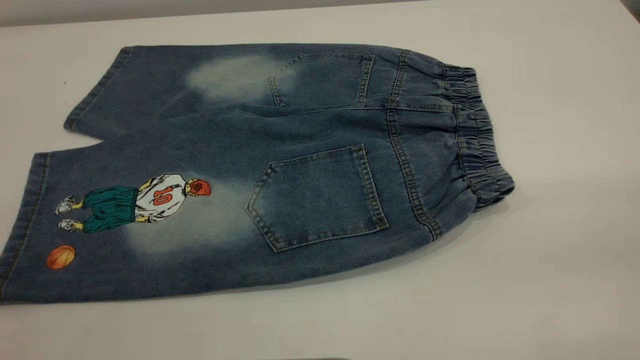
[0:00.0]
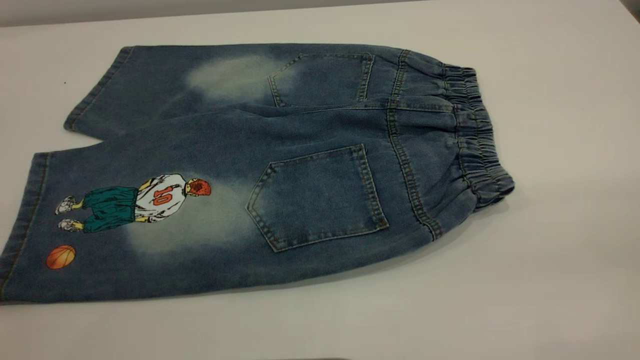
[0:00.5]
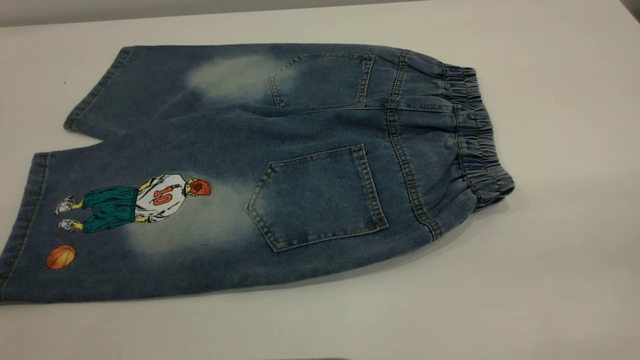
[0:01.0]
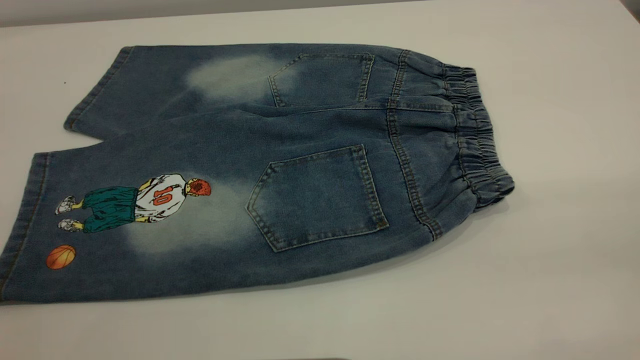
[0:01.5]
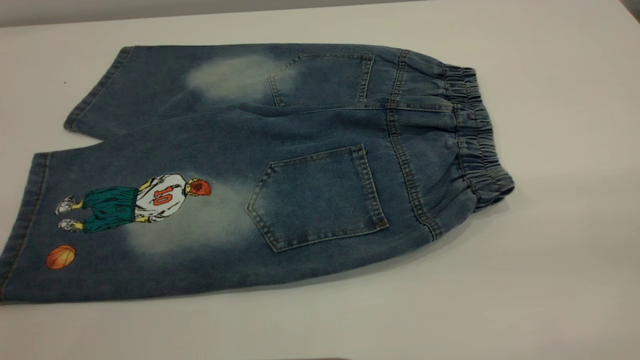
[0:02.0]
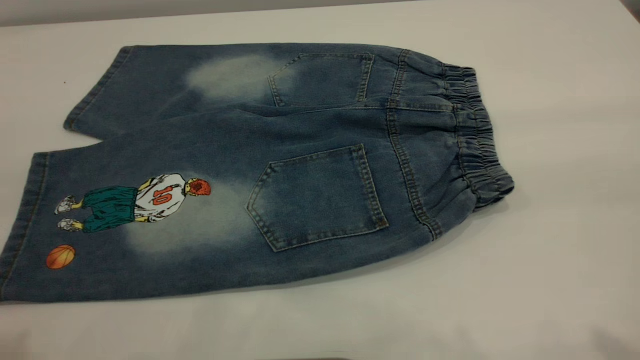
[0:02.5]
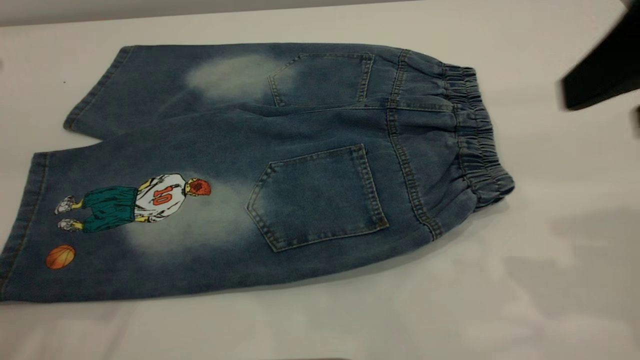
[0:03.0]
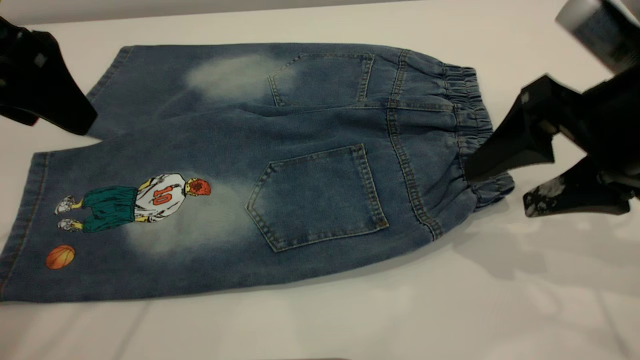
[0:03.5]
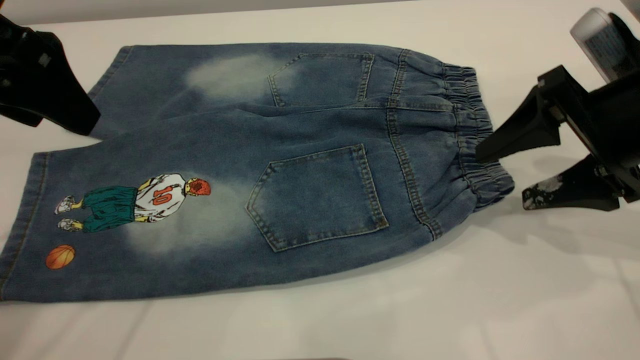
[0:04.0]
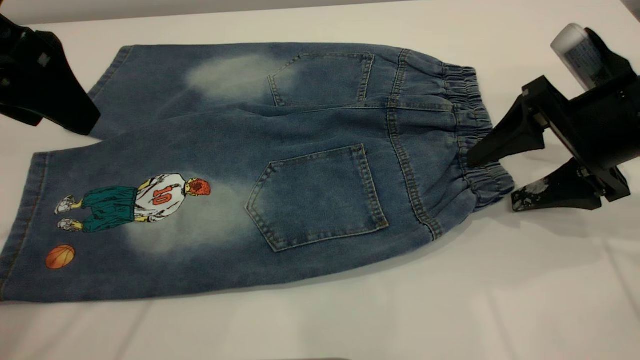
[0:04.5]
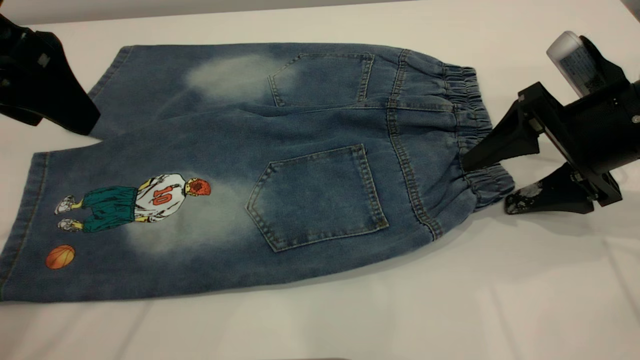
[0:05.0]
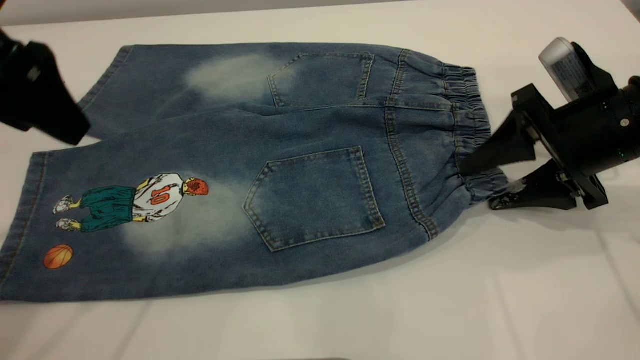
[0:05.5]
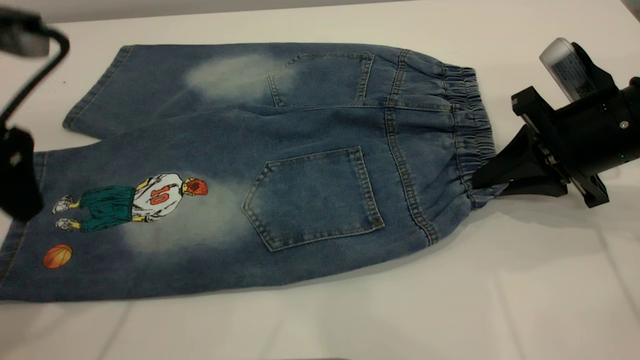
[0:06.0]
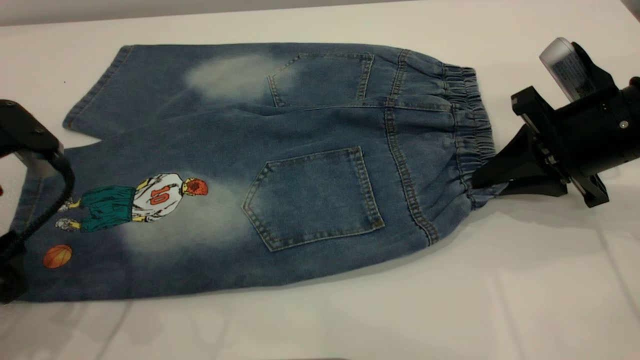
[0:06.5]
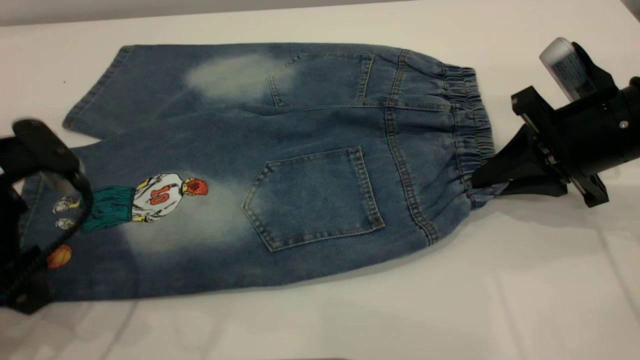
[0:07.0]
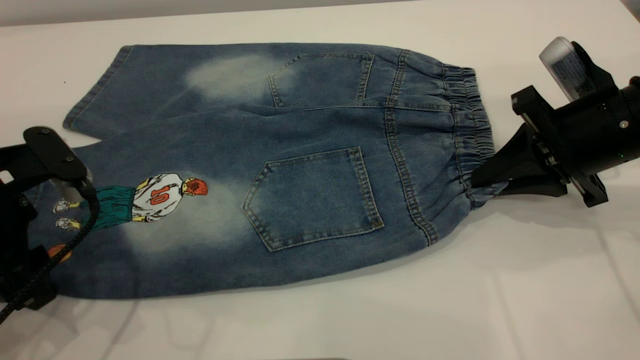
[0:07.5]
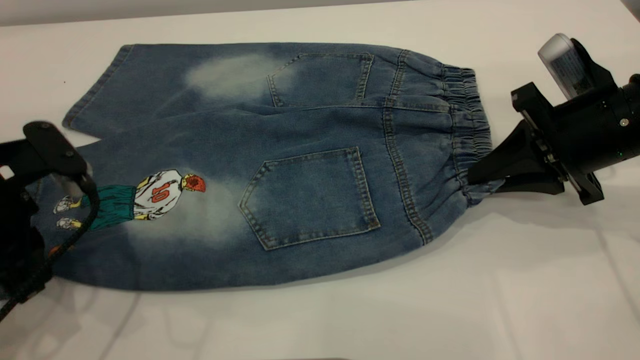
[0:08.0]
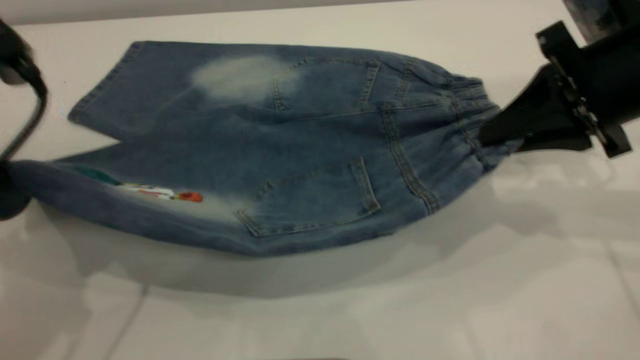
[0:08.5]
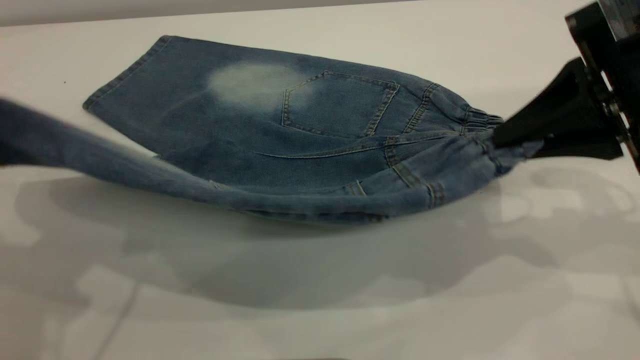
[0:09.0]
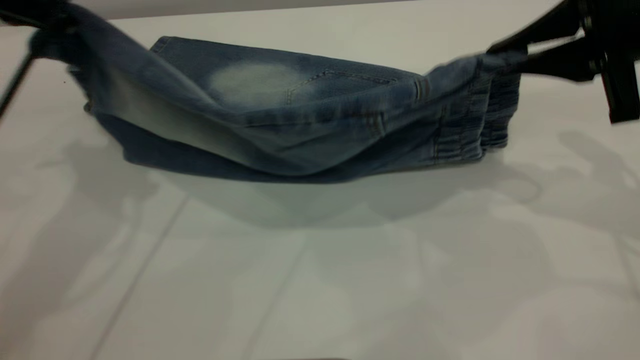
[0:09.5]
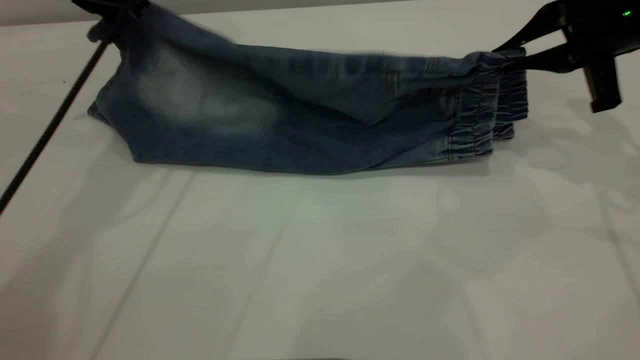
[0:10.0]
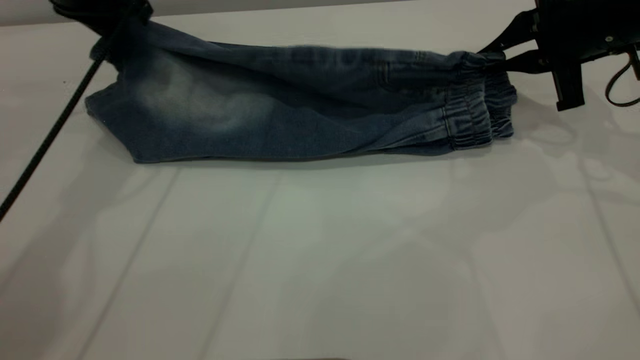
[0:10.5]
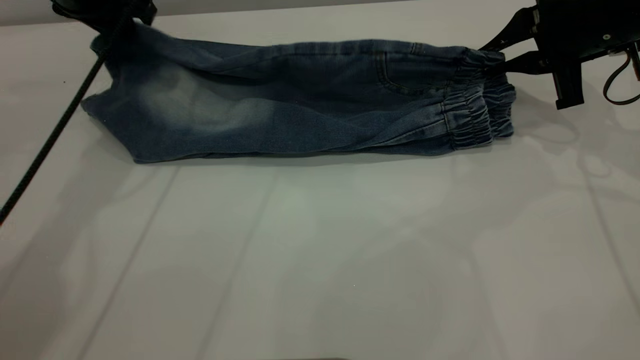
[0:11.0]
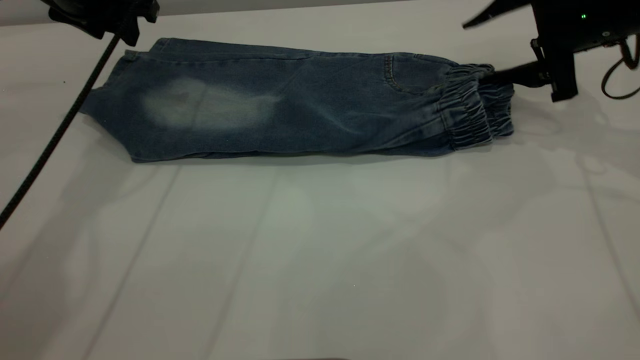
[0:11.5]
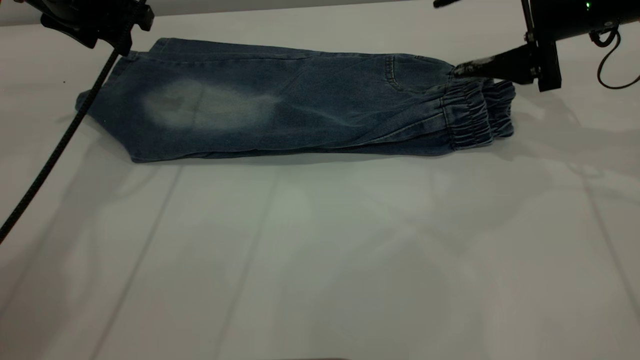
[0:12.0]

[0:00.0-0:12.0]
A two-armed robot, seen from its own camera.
Step, 0:00.0 to 0:11.5: Fold the bottom of the pants upward.
0:02.0 to 0:04.0: The left gripper travels forward by some 25 cm. Meanwhile the right gripper goes approximately 35 cm forward and downward.
0:04.0 to 0:06.0: The right gripper ends up some 5 cm from where it was, and closes up; the left gripper changes place by roughly 5 cm.
0:06.0 to 0:08.0: The left gripper goes some 10 cm downward, and closes its fingers.
0:08.0 to 0:10.0: The right gripper travels upward and forward by approximately 10 cm. The left gripper goes roughly 20 cm forward and upward.
0:10.0 to 0:12.0: The right gripper opens; the left gripper opens its fingers.

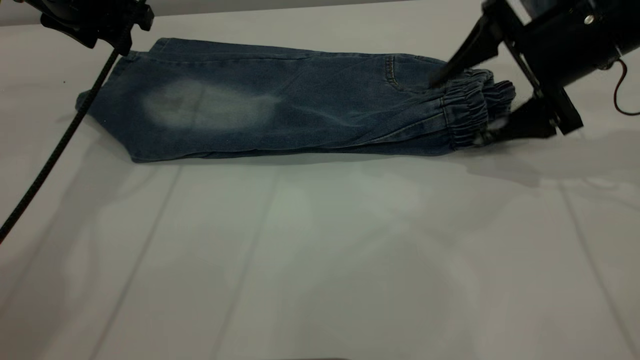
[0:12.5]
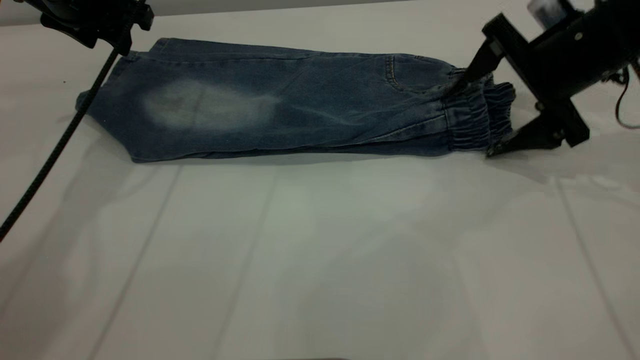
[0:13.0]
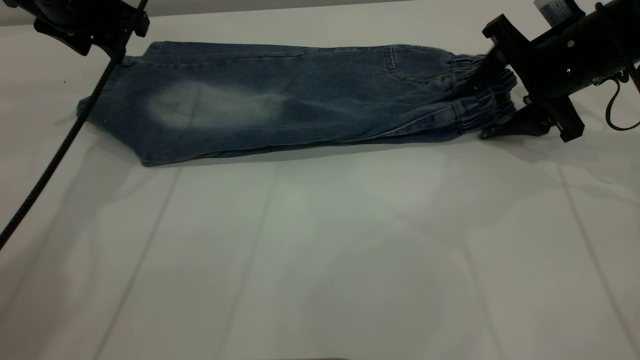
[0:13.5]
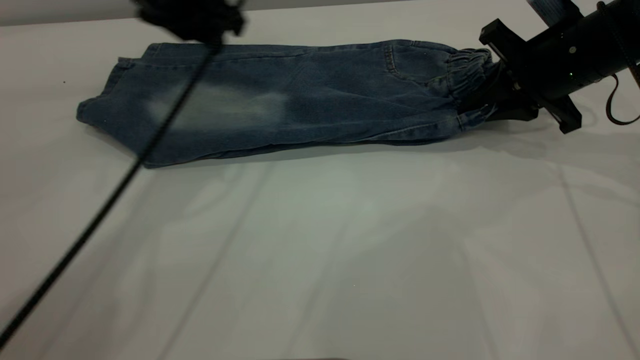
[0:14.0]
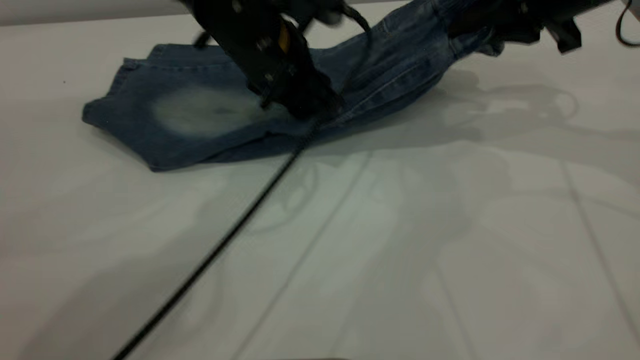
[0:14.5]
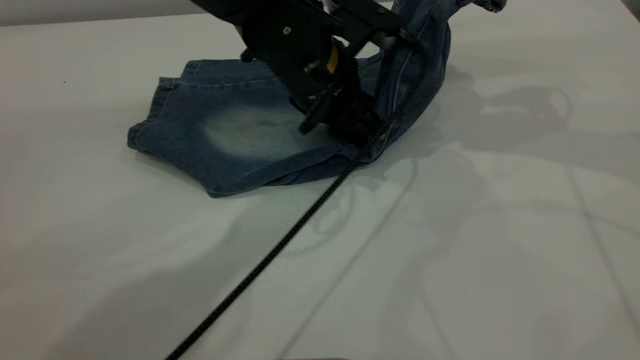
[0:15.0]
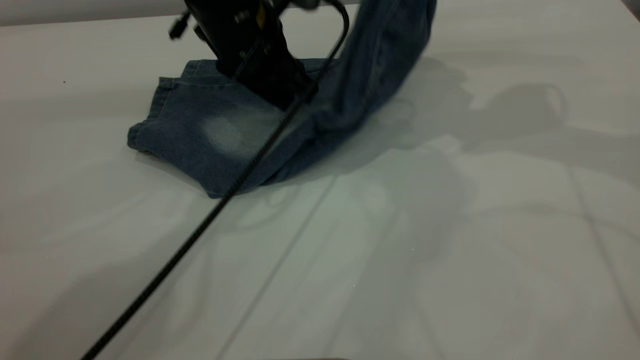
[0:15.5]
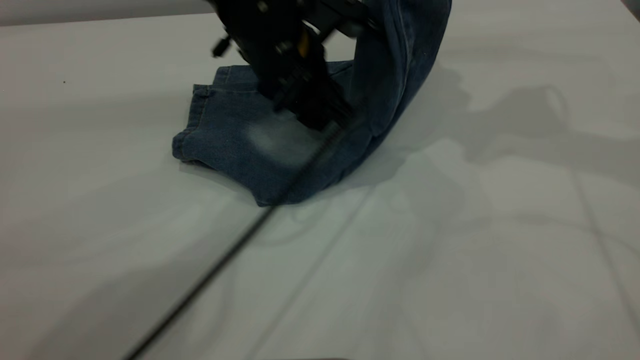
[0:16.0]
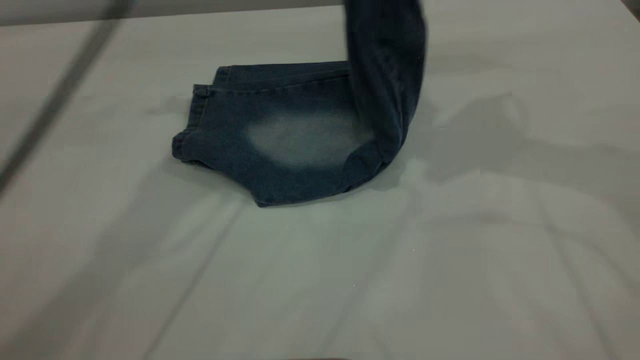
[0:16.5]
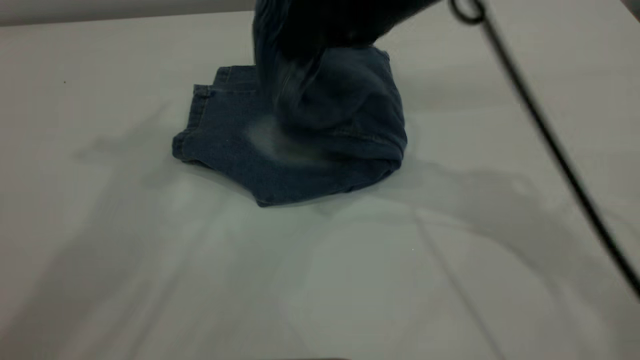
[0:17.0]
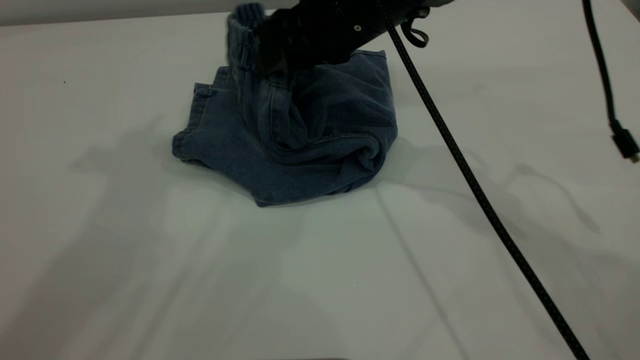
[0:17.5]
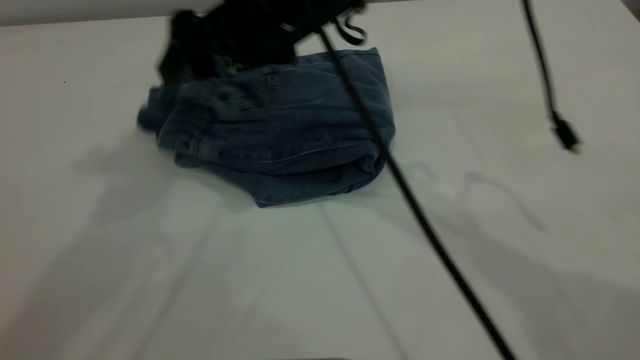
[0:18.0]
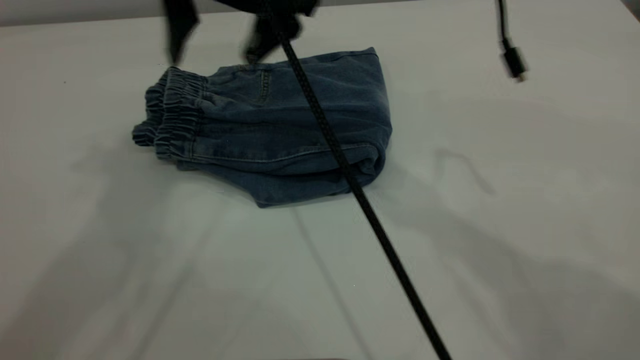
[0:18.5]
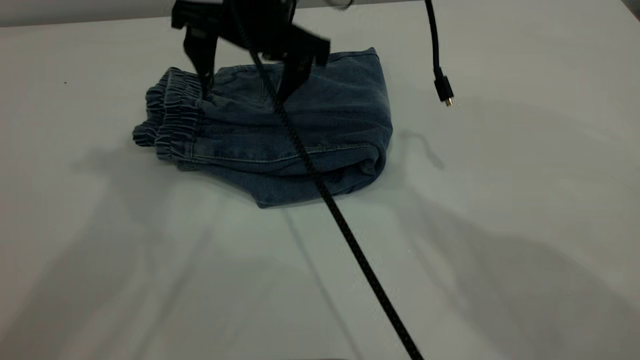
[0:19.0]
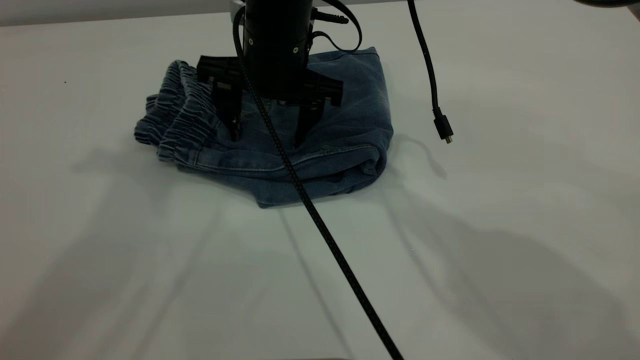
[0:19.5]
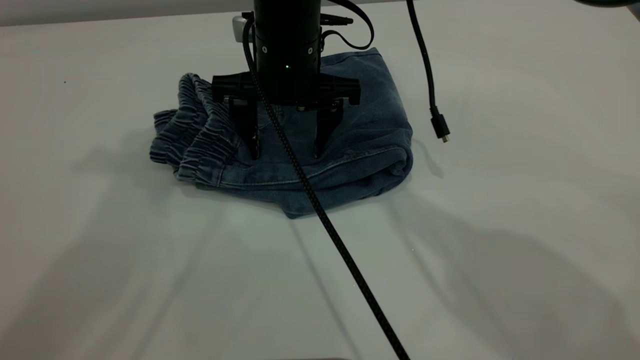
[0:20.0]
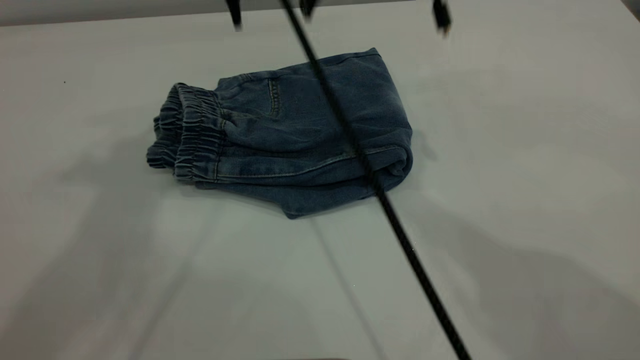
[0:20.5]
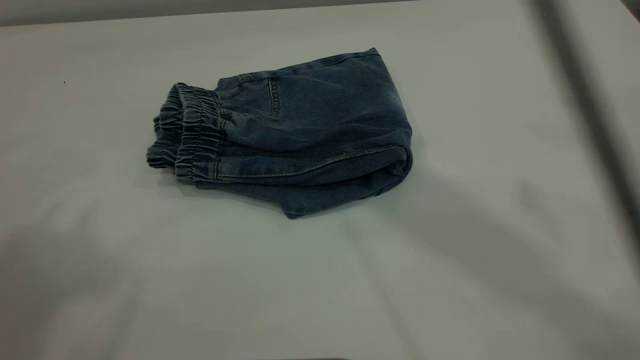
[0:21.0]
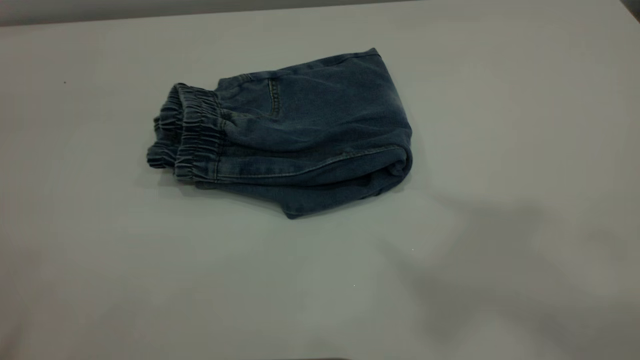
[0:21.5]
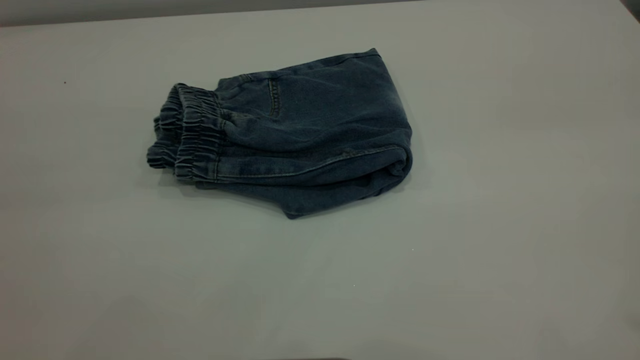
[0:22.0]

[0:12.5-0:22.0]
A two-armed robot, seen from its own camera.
Step, 0:12.5 to 0:18.0: Fold your pants from right to left.
0:12.5 to 0:14.5: The right gripper goes some 5 cm upward, and closes its fingers, while the left gripper goes roughly 20 cm to the right.
0:14.5 to 0:16.5: The right gripper is displaced upward and to the left by approximately 10 cm; the left gripper heads upward and to the left, covering some 25 cm.
0:16.5 to 0:18.0: The right gripper is displaced to the left and downward by roughly 20 cm, and opens; the left gripper travels upward and backward by about 15 cm.
0:18.0 to 0:20.0: The right gripper goes some 5 cm downward.
0:20.0 to 0:22.0: The right gripper heads upward, backward and to the right, covering roughly 50 cm; the left gripper is displaced backward by roughly 25 cm.
